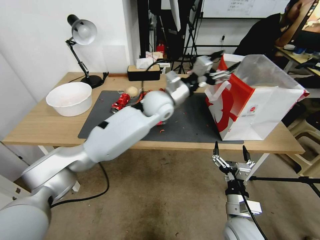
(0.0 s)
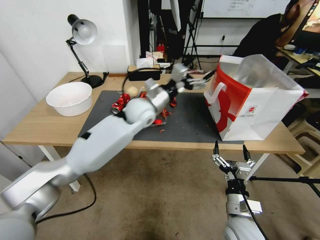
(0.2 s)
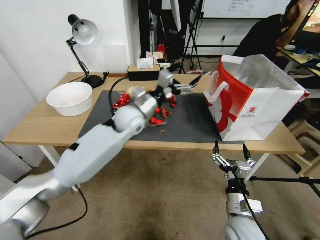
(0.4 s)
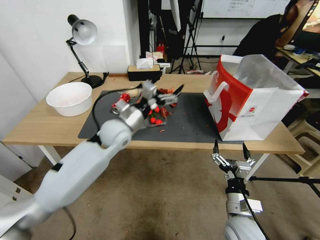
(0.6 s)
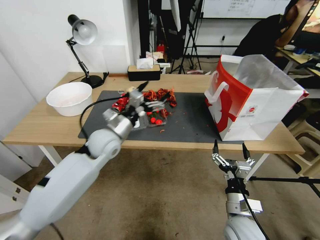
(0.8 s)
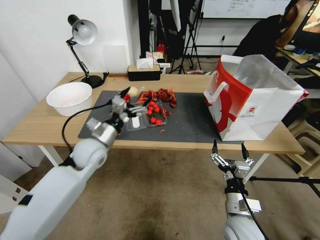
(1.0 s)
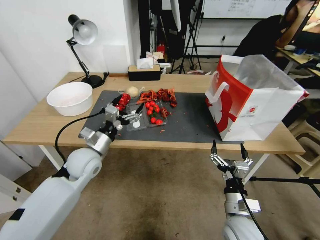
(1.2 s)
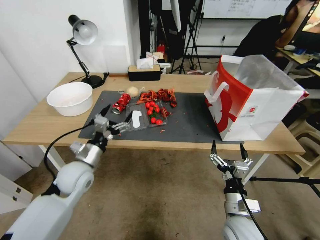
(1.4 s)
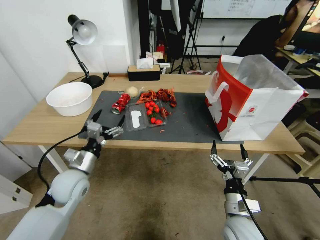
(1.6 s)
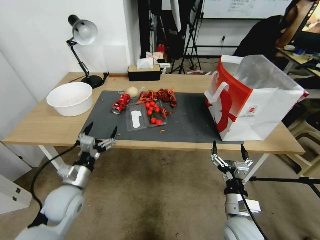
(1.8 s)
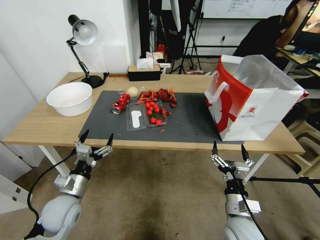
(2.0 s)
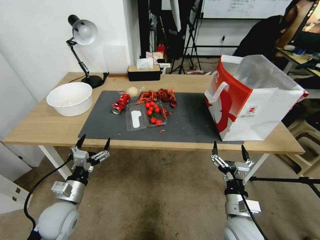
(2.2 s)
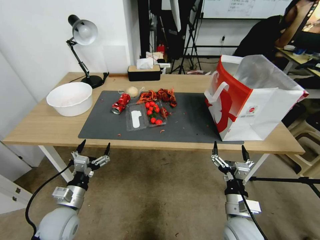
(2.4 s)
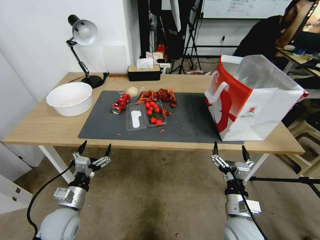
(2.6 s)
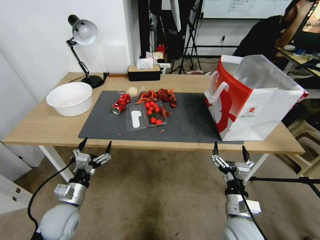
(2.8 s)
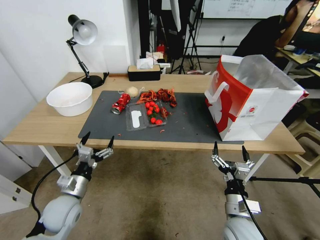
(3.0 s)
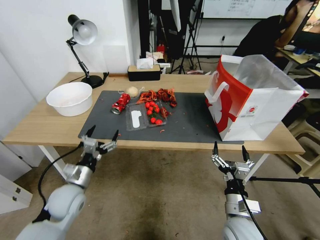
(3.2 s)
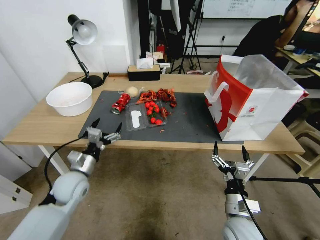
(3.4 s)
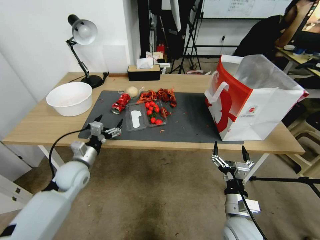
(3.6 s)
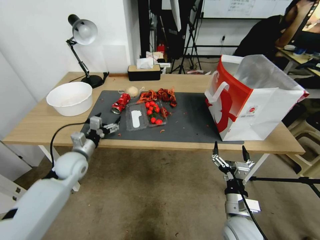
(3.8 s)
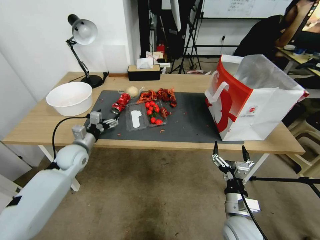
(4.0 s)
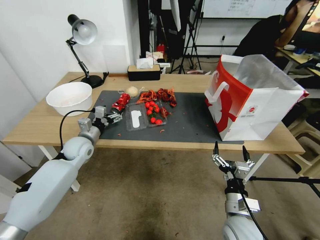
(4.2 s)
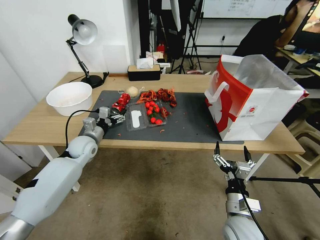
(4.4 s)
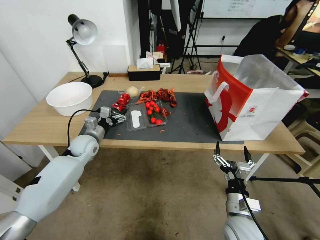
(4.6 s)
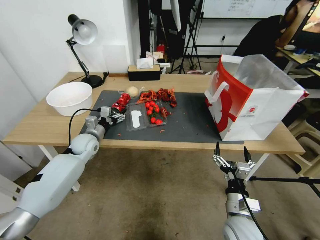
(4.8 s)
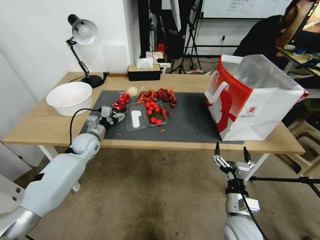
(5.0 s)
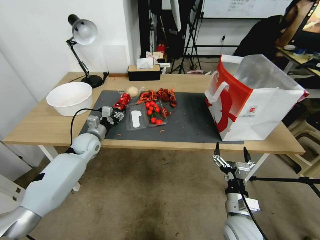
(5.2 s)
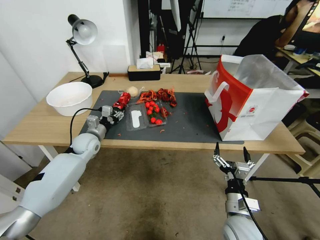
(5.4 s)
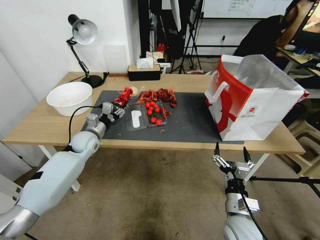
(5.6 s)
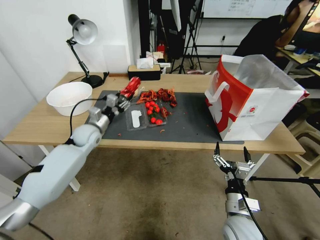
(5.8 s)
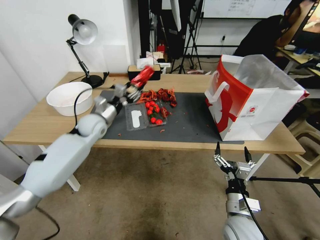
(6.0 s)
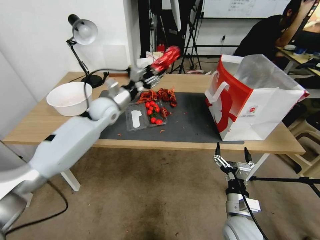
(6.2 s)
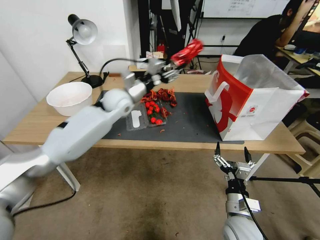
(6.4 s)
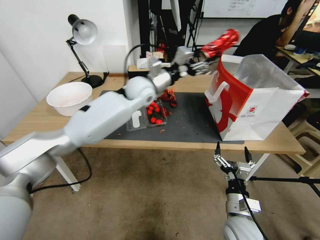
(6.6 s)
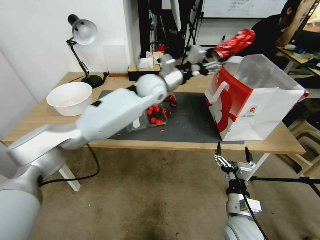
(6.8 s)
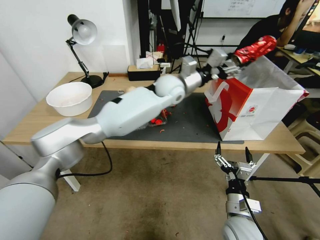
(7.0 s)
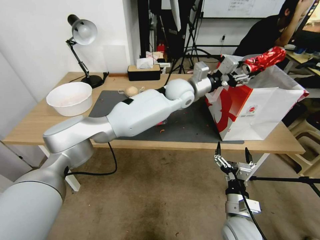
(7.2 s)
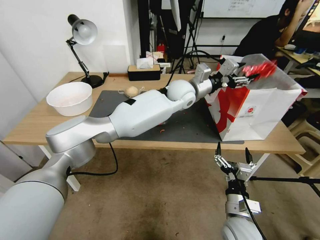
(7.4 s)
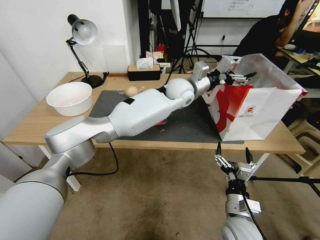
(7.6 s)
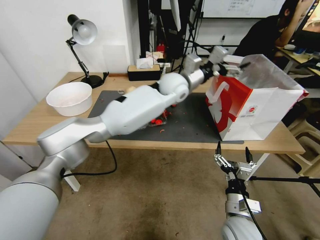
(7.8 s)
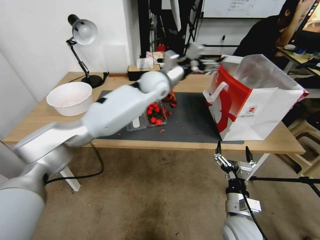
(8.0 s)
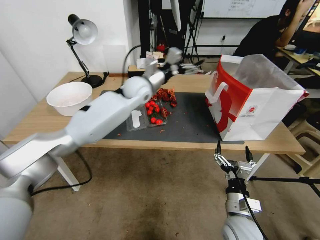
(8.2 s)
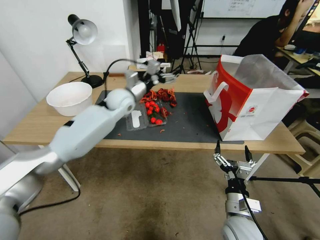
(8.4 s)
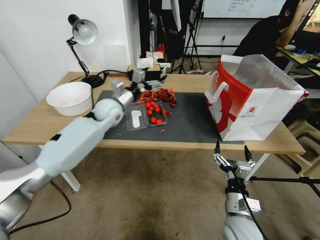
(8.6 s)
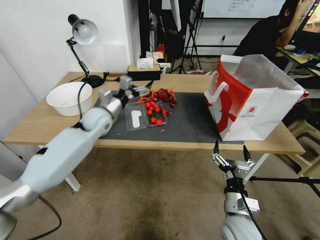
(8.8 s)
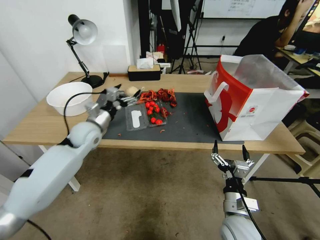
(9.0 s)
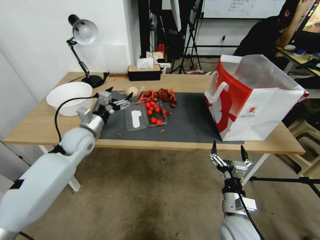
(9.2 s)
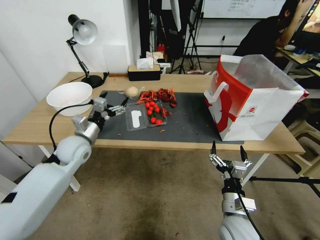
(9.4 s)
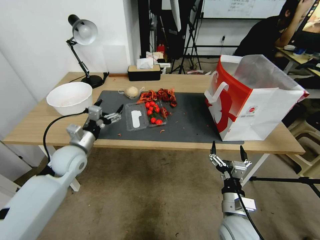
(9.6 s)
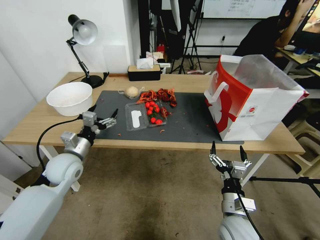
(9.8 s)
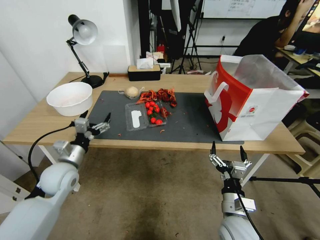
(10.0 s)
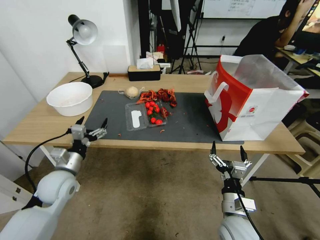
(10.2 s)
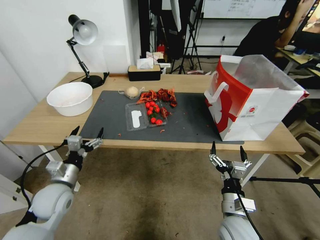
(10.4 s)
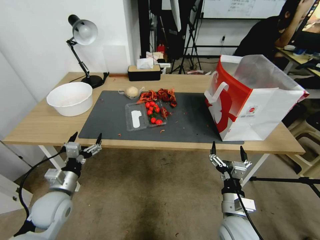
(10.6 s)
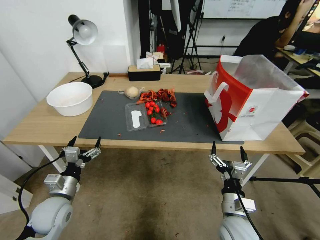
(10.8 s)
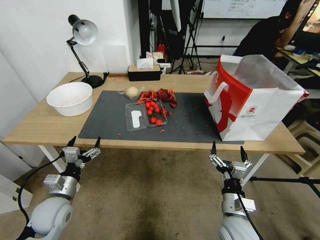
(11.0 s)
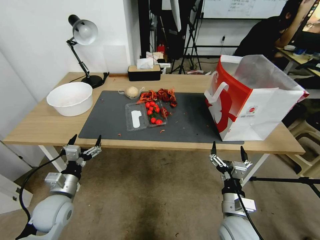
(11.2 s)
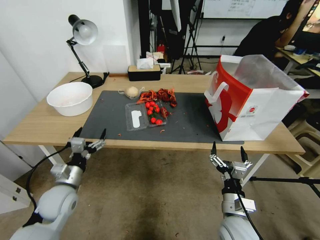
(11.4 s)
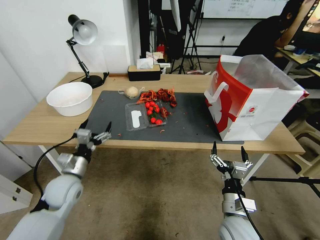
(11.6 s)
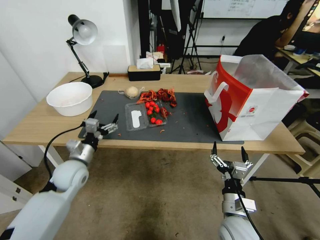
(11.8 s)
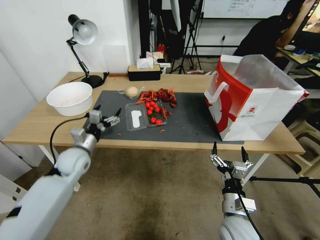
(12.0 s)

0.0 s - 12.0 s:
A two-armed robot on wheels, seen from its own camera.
0.0 s - 1.6 s: The left gripper travels to the left, backward and downward by roughly 30 cm.
1.6 s - 3.0 s: The left gripper heads backward and downward, covering approximately 15 cm.
3.0 s - 4.4 s: The left gripper travels forward by about 20 cm.
4.4 s - 6.0 s: The left gripper is displaced forward, upward and to the right by roughly 10 cm, and closes.
6.0 s - 7.6 s: The left gripper goes about 30 cm to the right, and opens its fingers.
7.6 s - 9.0 s: The left gripper moves to the left, approximately 35 cm.
9.0 s - 10.4 s: The left gripper moves backward and downward, some 20 cm.
10.4 s - 12.0 s: The left gripper heads forward, covering roughly 10 cm.

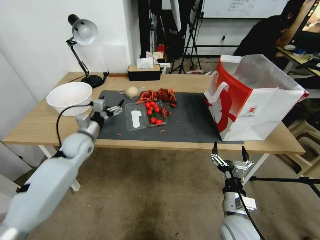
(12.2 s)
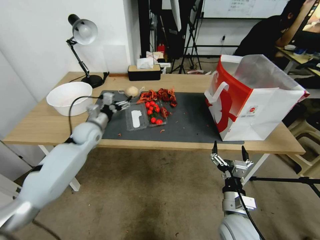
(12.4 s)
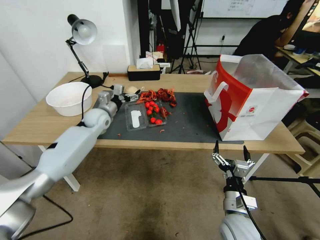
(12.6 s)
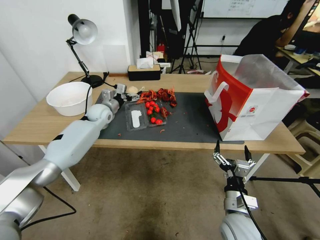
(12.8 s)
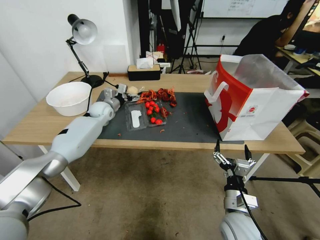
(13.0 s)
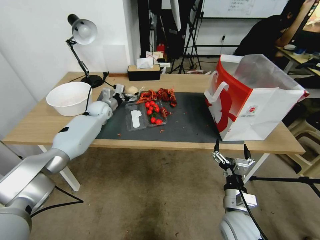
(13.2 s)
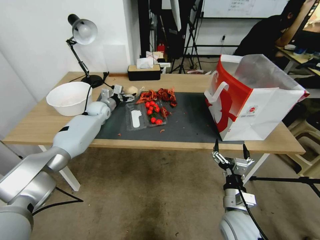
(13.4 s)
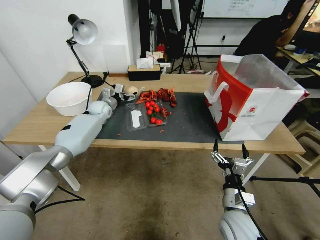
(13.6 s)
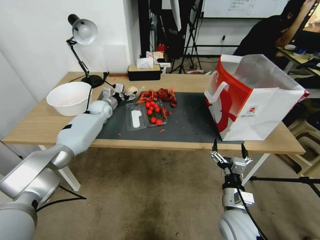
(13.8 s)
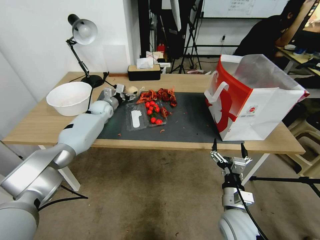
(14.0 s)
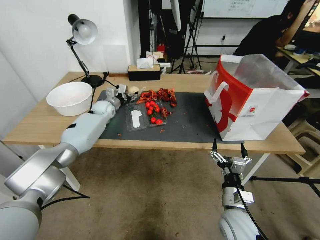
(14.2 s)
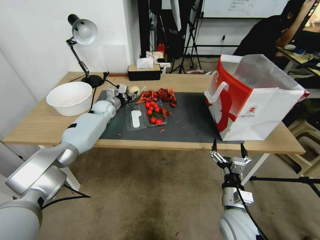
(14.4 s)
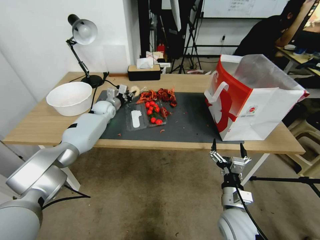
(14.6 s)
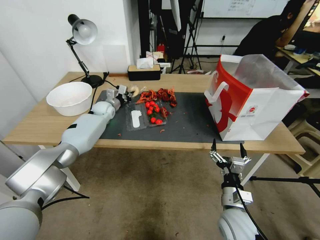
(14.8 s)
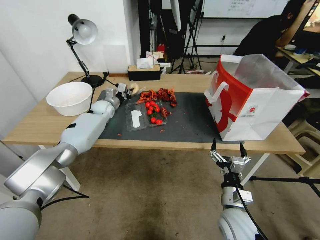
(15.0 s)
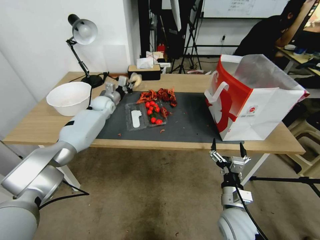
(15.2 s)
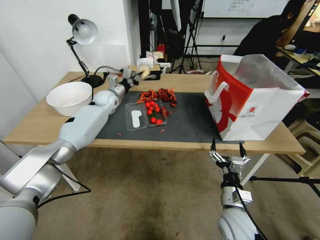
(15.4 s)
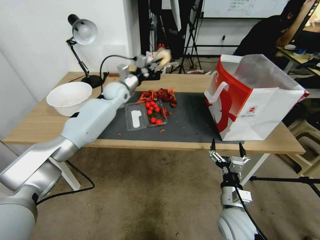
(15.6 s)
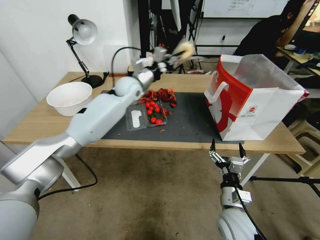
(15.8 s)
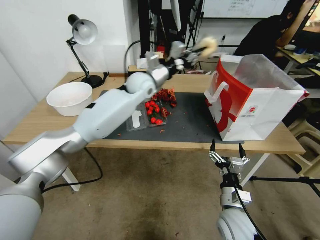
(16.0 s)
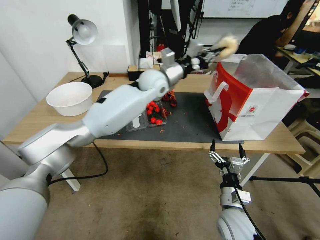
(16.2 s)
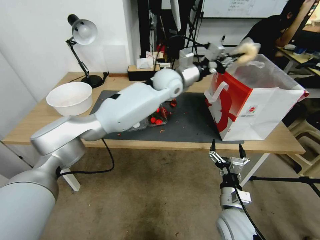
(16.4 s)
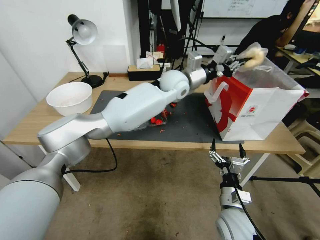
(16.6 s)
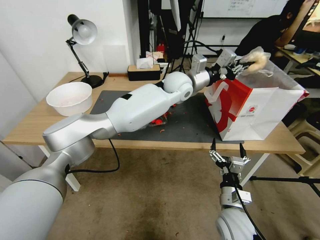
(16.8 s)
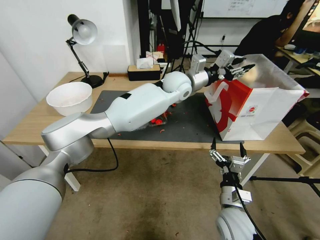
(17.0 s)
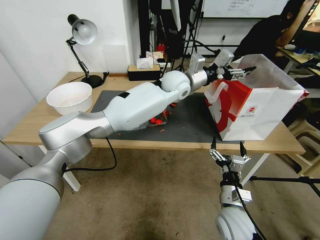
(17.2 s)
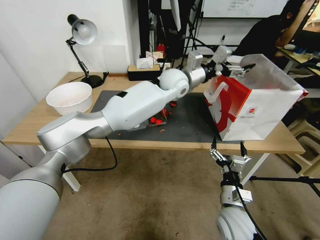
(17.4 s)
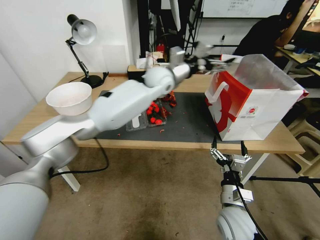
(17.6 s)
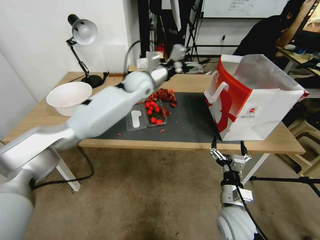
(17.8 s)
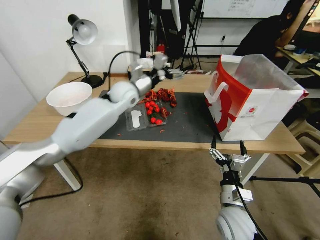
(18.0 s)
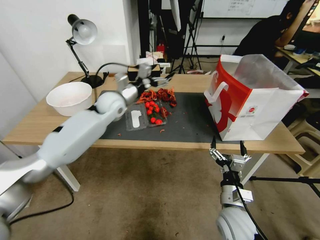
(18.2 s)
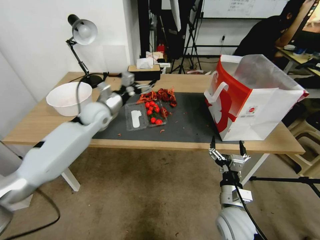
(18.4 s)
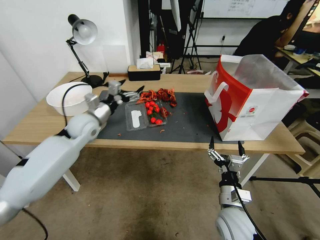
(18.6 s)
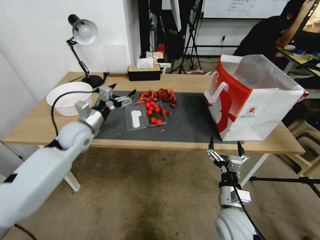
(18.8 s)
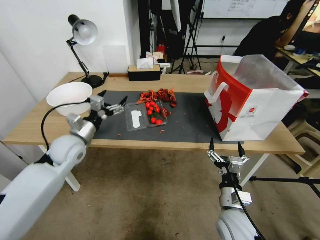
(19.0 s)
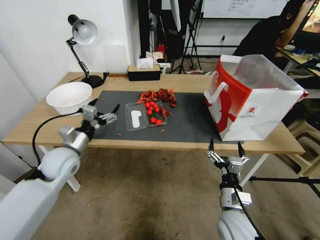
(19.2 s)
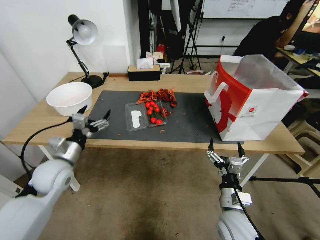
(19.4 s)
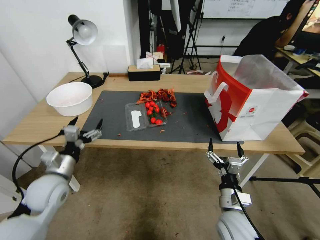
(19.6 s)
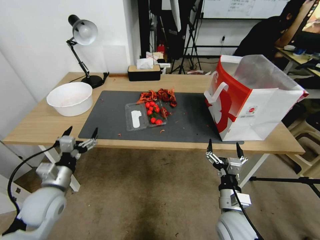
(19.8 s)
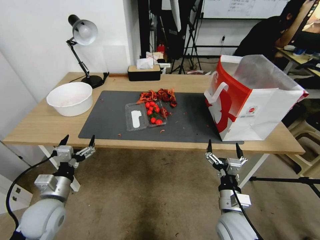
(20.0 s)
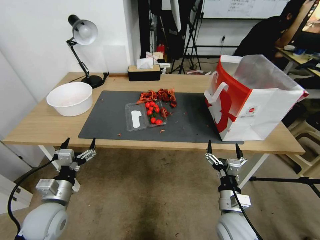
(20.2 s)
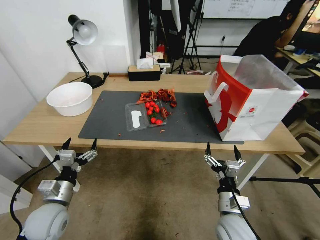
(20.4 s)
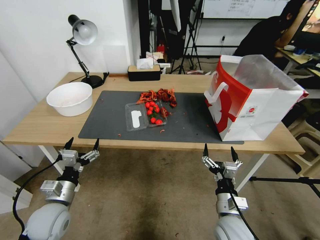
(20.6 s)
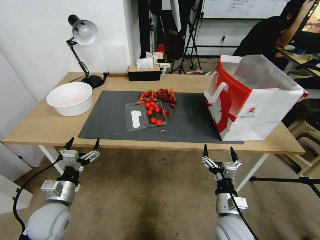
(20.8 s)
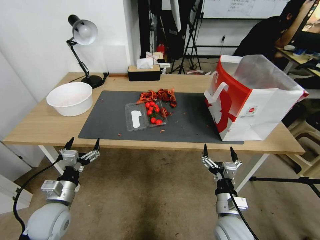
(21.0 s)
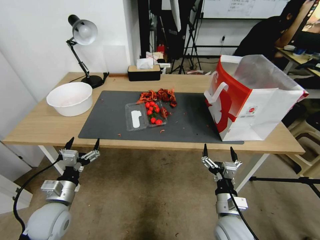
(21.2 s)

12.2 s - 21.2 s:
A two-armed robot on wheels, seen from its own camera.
12.2 s - 13.8 s: The left gripper heads forward, covering some 20 cm.
13.8 s - 15.2 s: The left gripper closes up.
15.2 s - 16.6 s: The left gripper travels to the right and upward by about 35 cm.
16.6 s - 18.2 s: The left gripper is displaced to the left by about 20 cm, and opens its fingers.
18.2 s - 19.8 s: The left gripper is displaced backward, to the left and downward by about 35 cm.
19.8 s - 21.2 s: The grippers move only a little.
